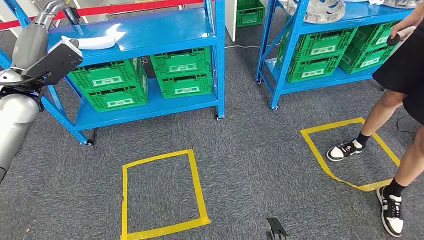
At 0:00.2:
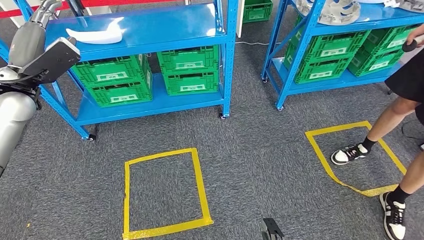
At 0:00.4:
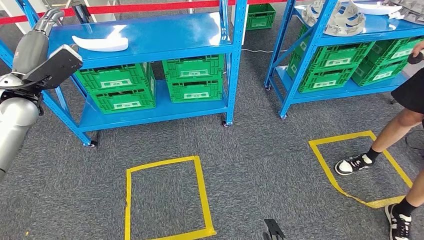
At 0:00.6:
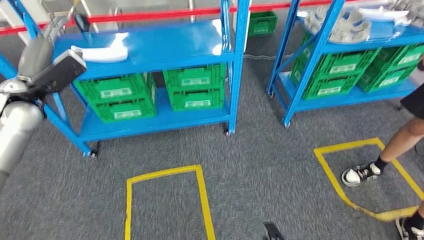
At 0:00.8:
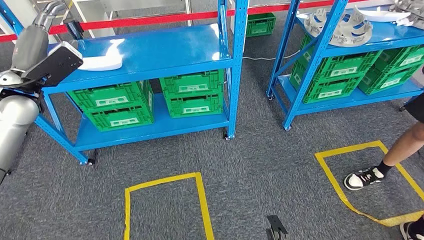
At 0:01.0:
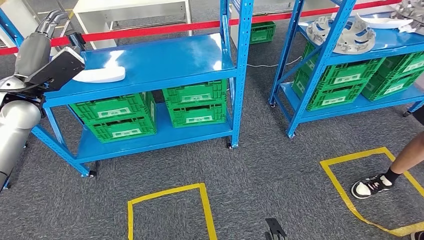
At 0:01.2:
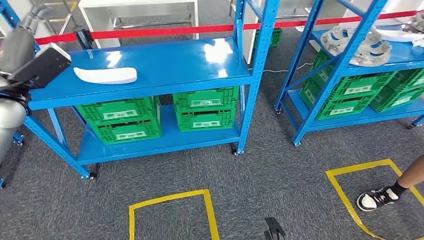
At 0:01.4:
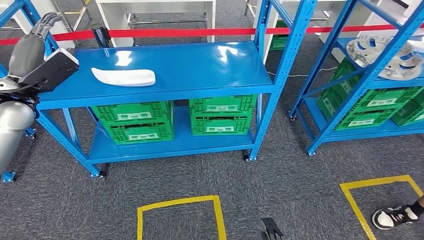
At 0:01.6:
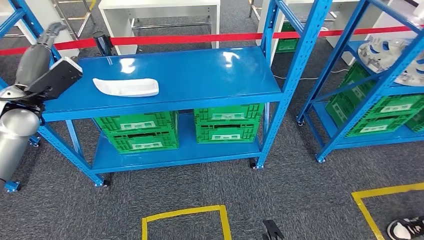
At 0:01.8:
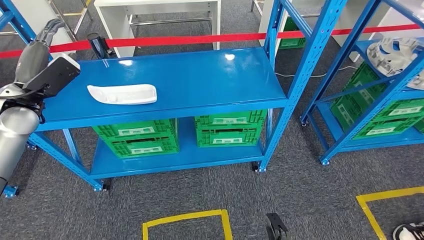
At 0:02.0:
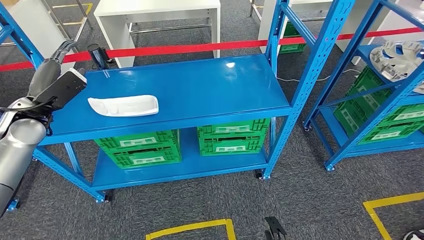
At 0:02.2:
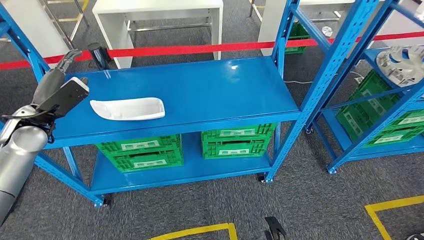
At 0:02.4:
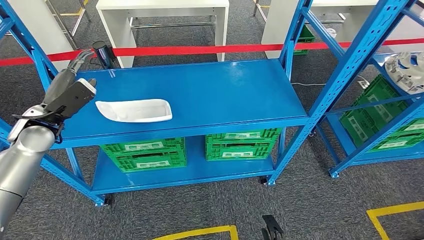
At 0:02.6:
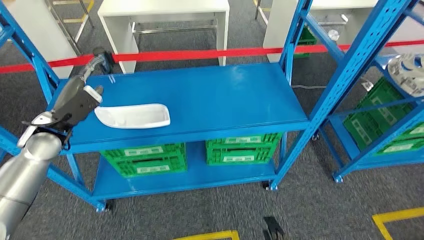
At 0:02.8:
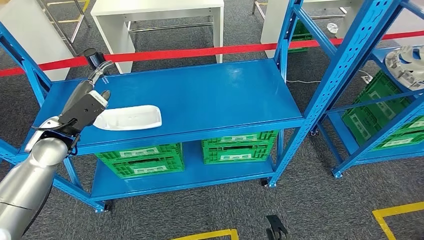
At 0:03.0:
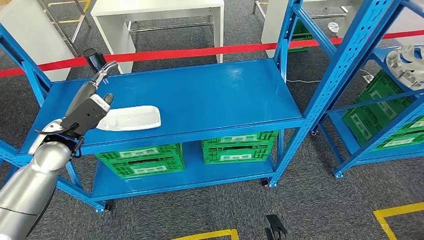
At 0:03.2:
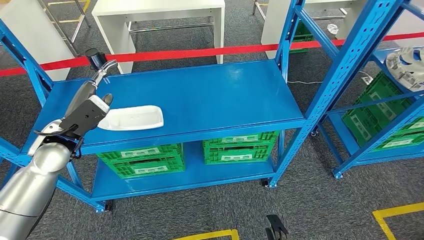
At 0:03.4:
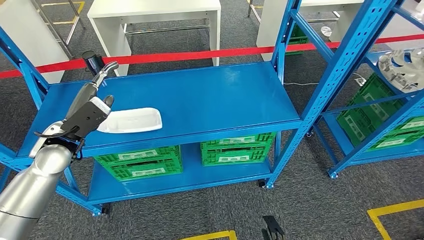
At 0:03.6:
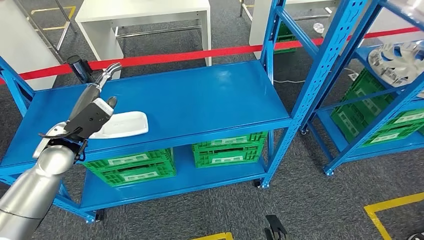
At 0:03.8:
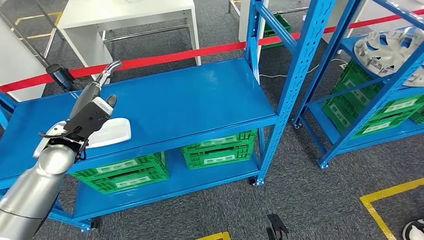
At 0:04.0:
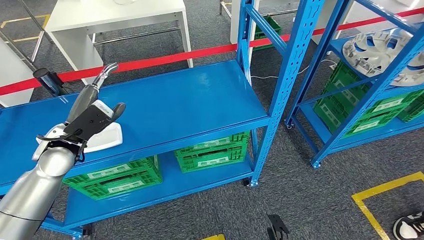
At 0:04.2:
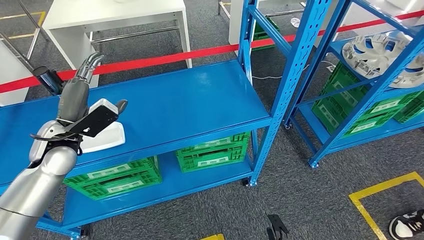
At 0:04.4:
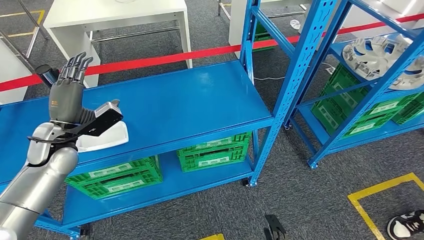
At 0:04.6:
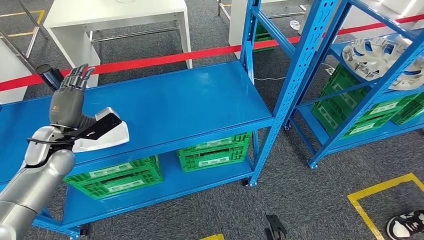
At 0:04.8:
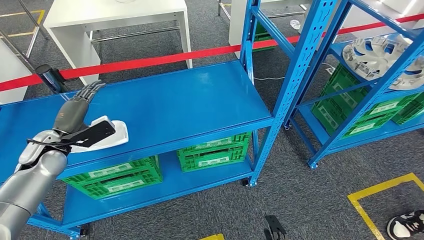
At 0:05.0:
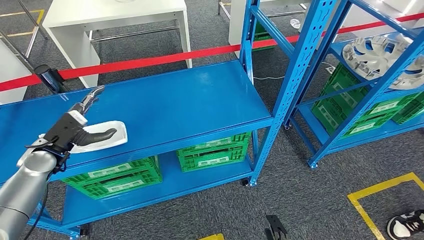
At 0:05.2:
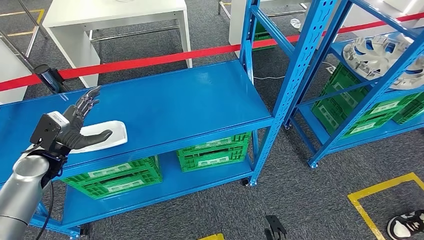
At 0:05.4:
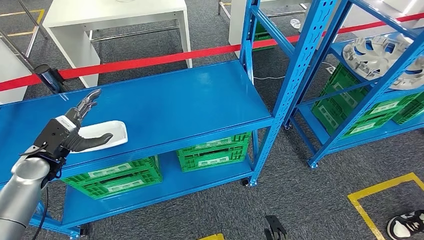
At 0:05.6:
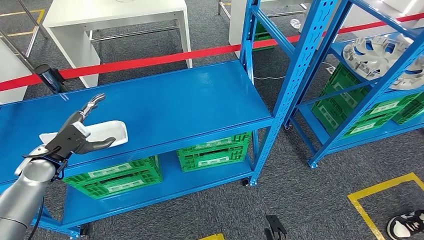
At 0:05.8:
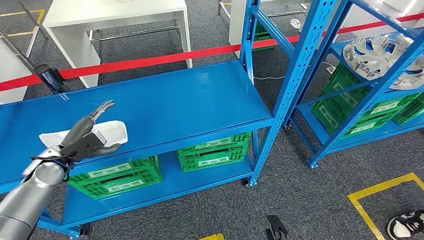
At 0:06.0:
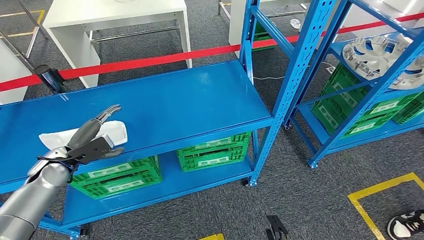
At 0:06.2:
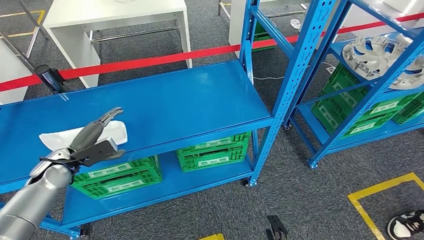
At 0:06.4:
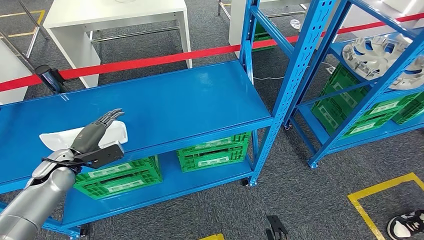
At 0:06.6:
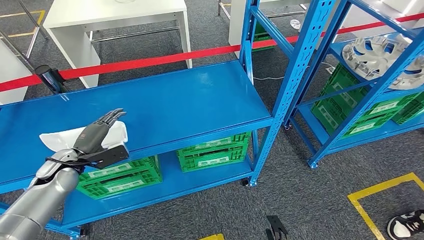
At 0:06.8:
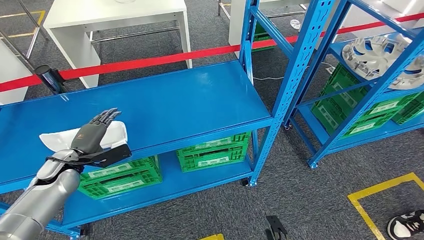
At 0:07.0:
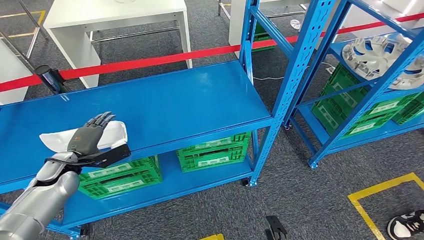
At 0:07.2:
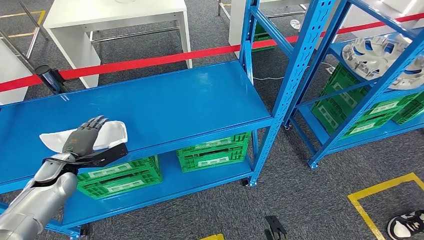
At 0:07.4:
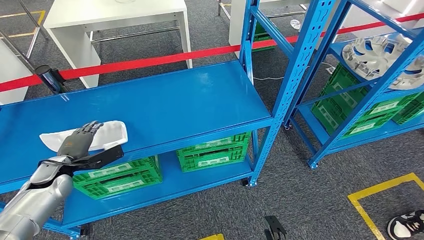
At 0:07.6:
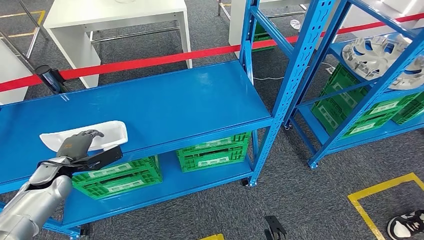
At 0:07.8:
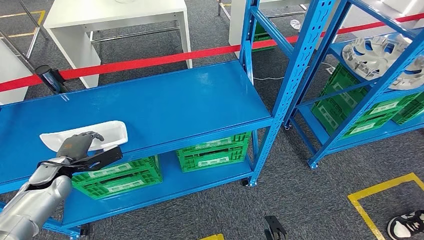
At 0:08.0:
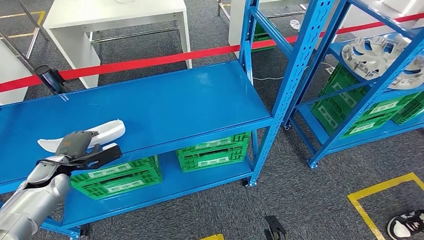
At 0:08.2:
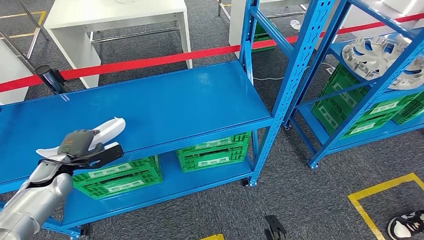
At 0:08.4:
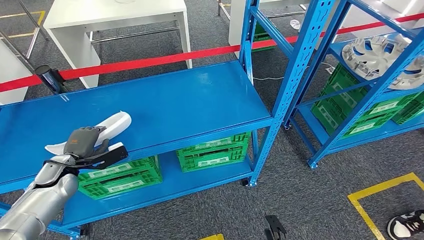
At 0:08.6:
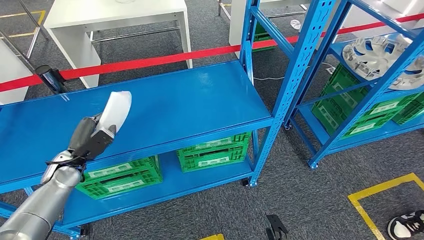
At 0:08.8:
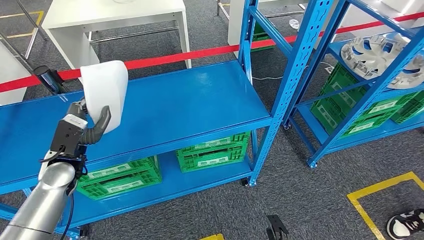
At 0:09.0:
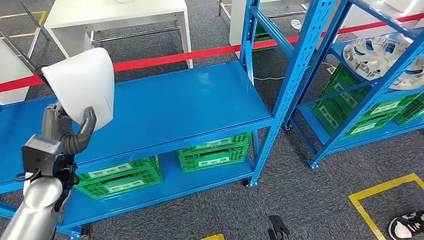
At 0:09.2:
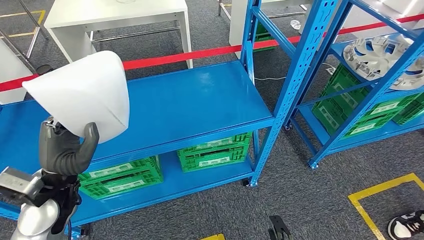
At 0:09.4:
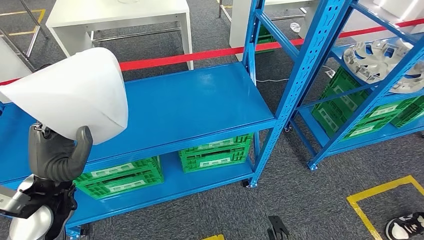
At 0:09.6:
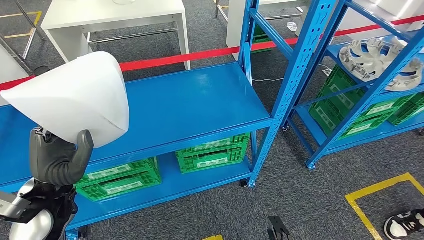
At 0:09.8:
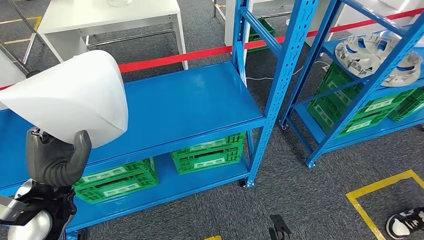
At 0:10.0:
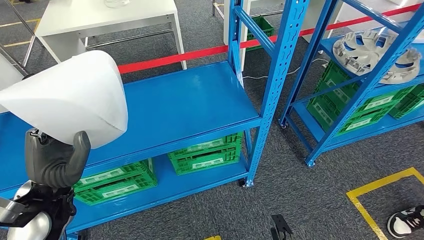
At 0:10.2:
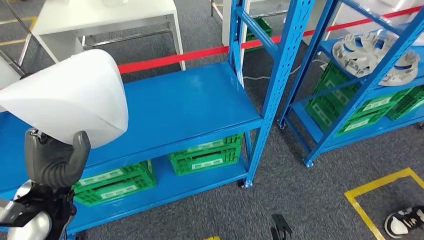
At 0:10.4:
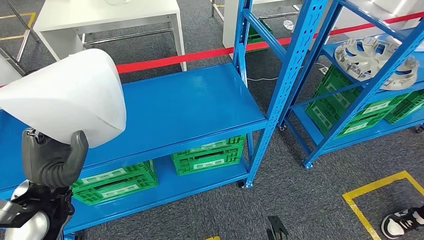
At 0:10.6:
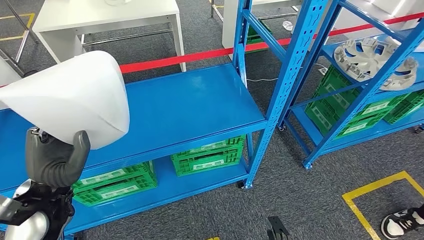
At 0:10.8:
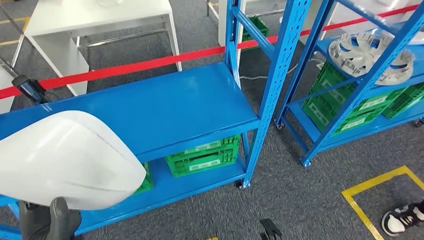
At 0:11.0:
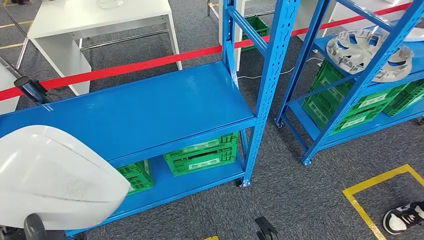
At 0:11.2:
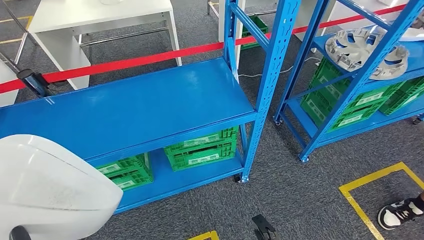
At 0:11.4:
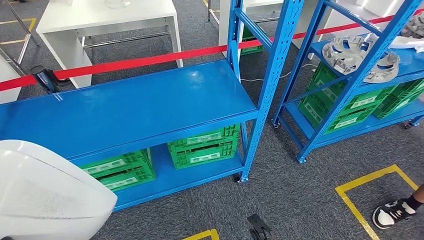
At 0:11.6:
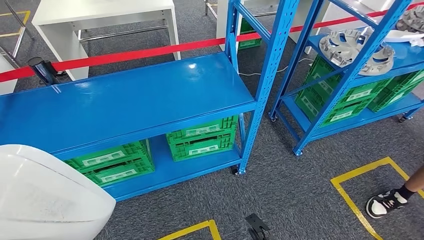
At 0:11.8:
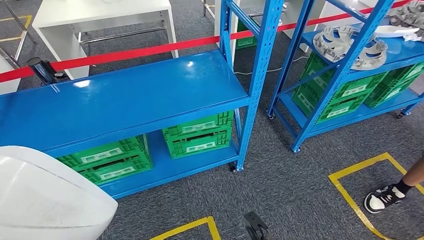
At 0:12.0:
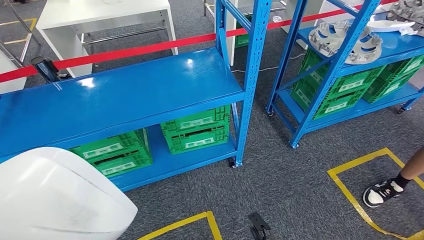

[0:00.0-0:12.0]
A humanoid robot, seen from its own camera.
Step, 0:00.0 to 0:09.4: Pick up the small component from the shelf.
0:04.4 to 0:06.0: The left hand moves downward and to the left, about 10 cm.
0:07.6 to 0:09.0: The left hand heads upward and to the right, covering about 10 cm.

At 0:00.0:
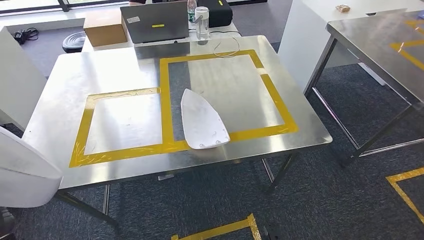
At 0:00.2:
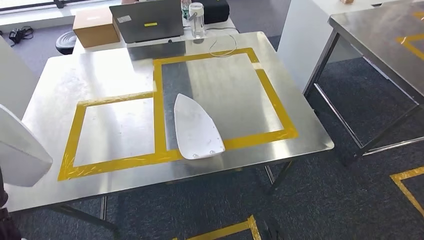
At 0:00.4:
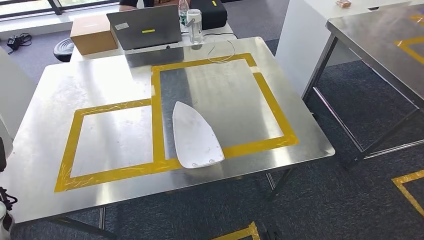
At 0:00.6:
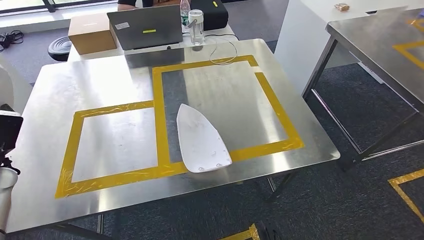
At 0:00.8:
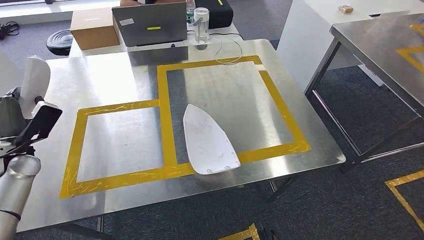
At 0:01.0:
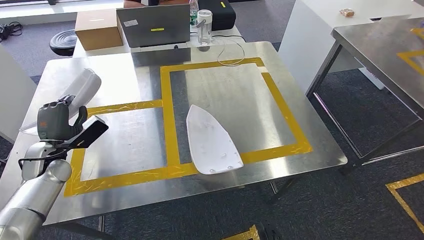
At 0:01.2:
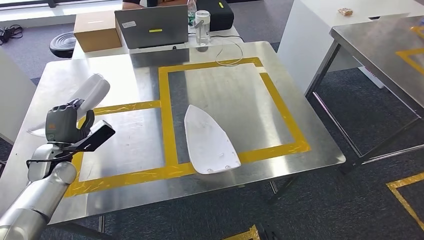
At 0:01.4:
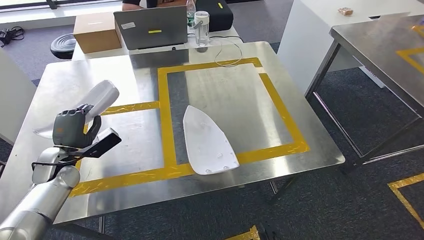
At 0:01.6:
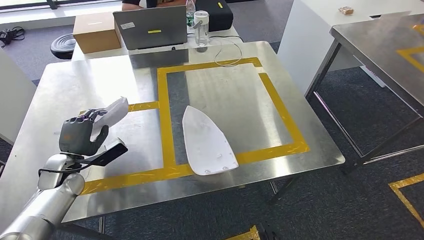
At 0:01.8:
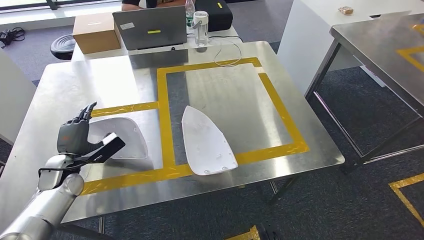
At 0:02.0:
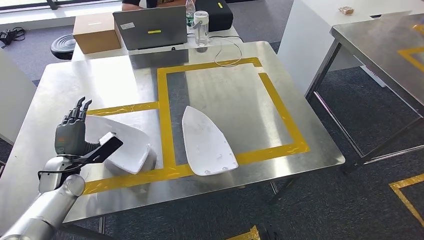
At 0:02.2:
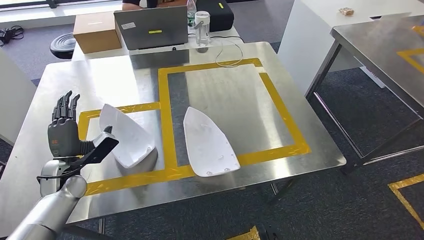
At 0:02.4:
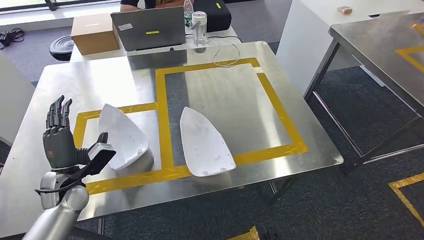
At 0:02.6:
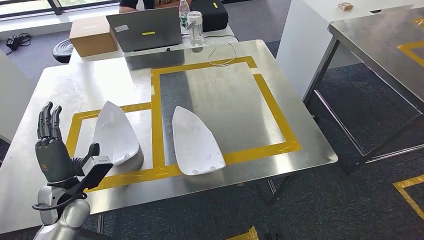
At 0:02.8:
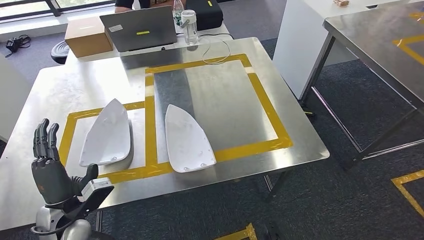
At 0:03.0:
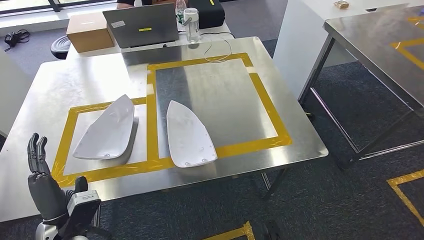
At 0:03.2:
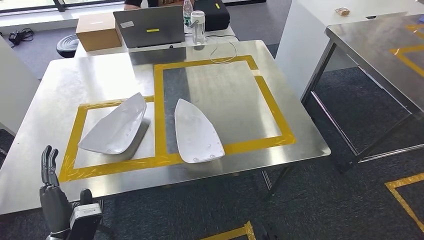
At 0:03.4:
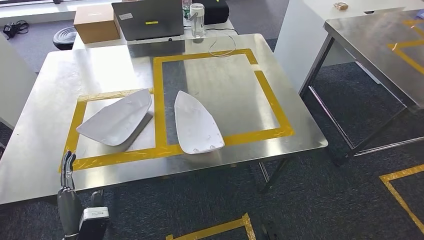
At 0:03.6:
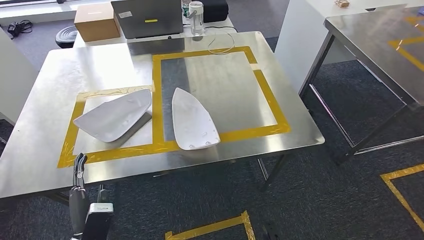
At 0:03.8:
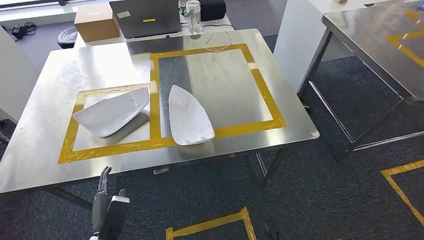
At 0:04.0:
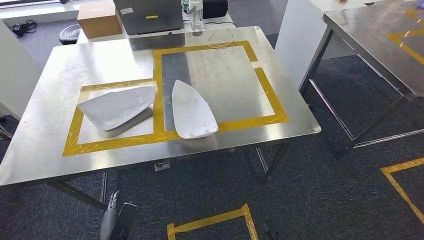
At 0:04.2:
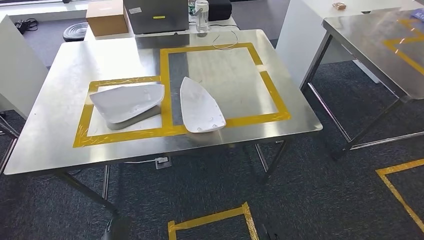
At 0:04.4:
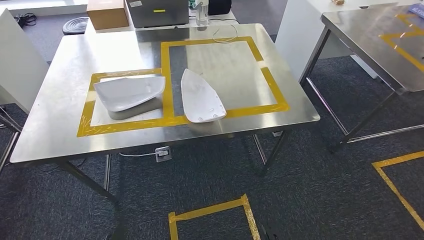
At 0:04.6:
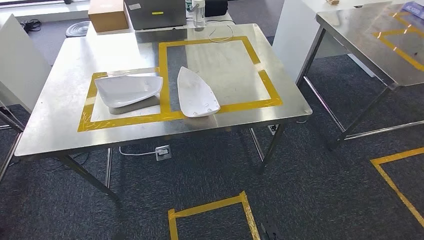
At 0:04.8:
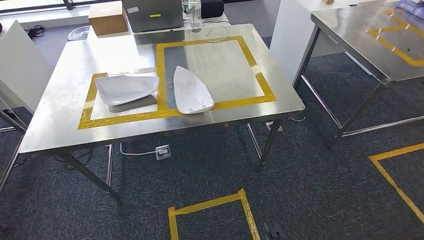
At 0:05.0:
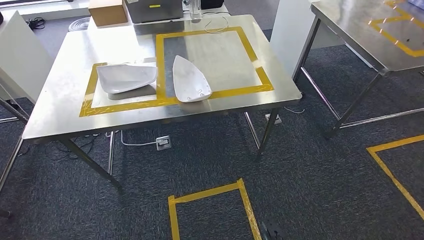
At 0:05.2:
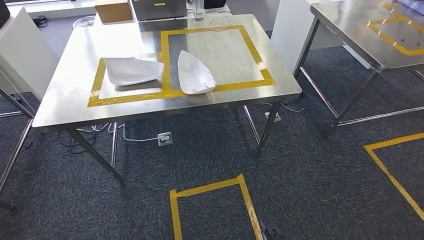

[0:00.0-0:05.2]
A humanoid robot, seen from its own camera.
Step, 0:00.8 to 0:03.2: Insert the small component into the corresponding slot on the workbench.
